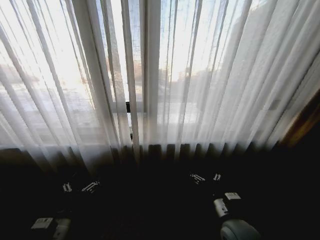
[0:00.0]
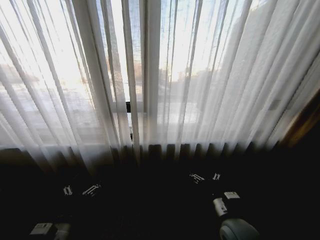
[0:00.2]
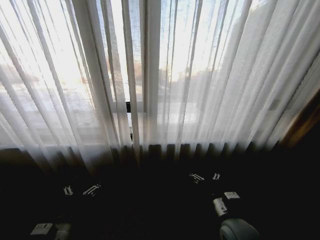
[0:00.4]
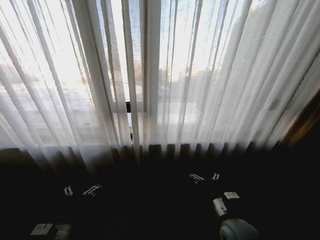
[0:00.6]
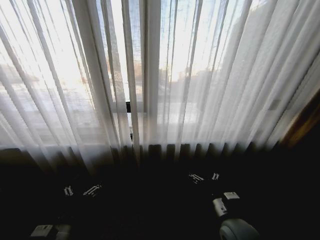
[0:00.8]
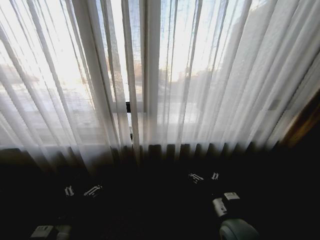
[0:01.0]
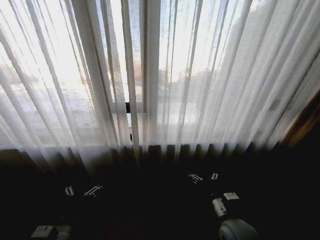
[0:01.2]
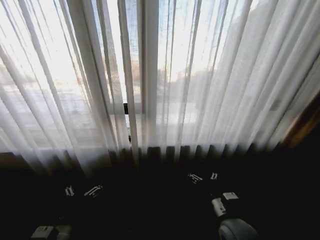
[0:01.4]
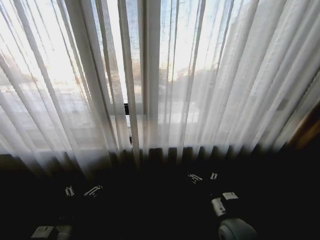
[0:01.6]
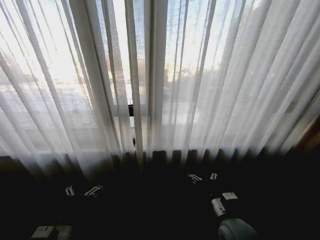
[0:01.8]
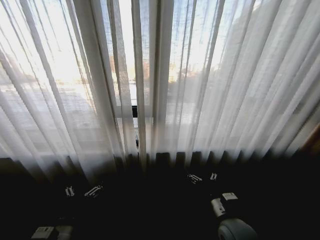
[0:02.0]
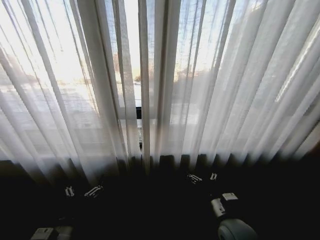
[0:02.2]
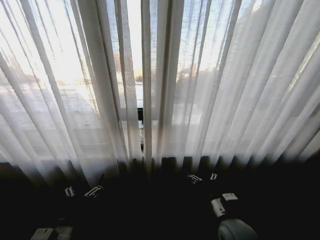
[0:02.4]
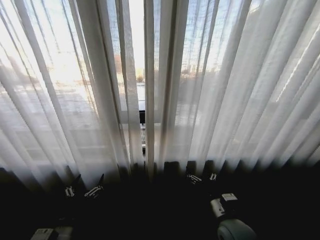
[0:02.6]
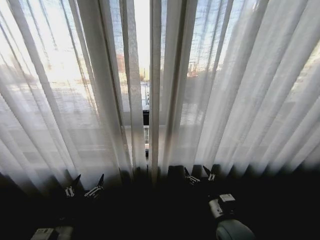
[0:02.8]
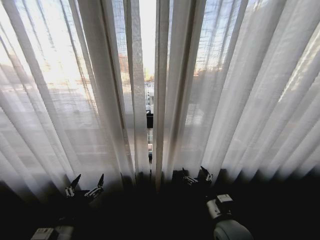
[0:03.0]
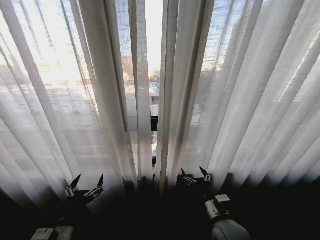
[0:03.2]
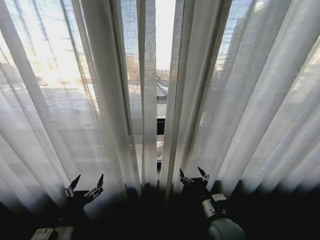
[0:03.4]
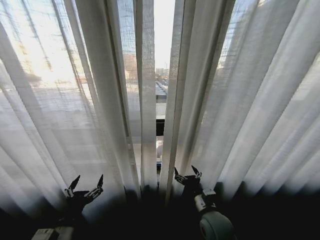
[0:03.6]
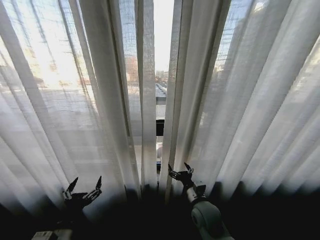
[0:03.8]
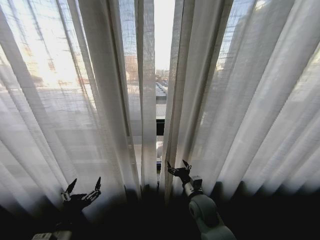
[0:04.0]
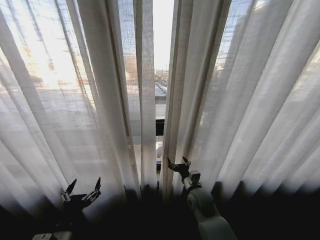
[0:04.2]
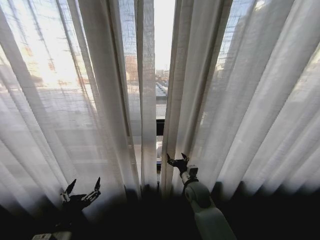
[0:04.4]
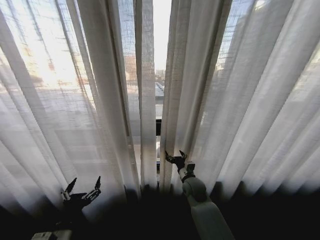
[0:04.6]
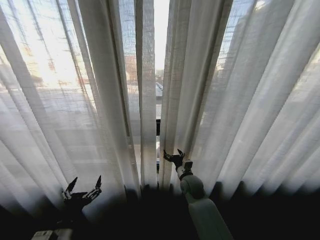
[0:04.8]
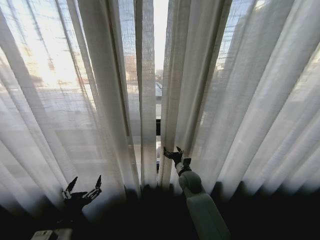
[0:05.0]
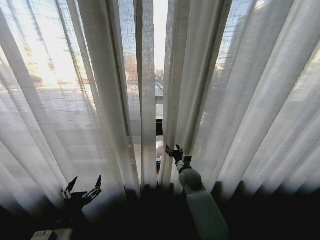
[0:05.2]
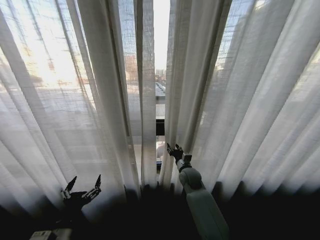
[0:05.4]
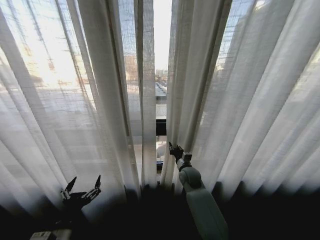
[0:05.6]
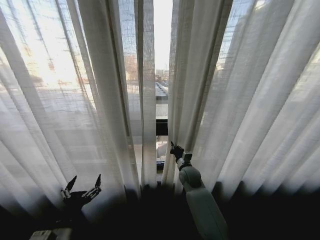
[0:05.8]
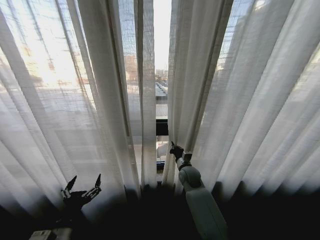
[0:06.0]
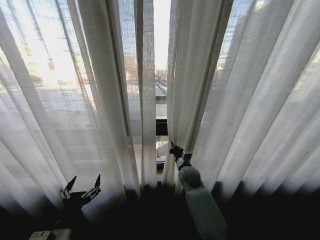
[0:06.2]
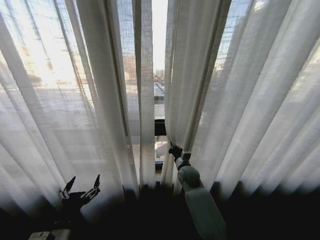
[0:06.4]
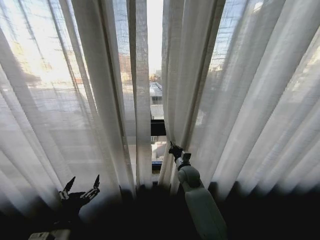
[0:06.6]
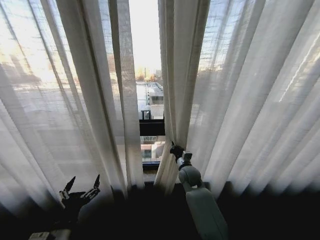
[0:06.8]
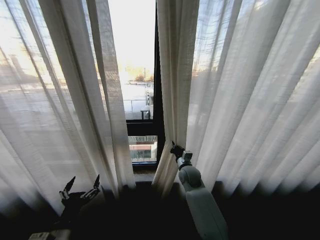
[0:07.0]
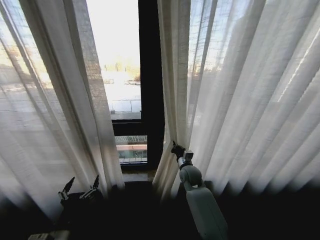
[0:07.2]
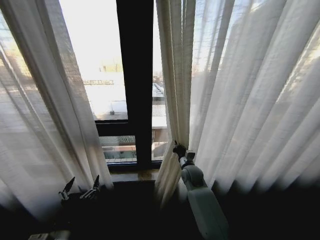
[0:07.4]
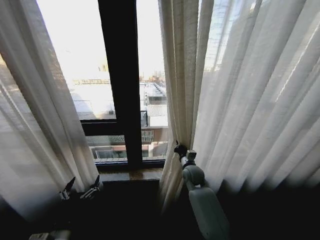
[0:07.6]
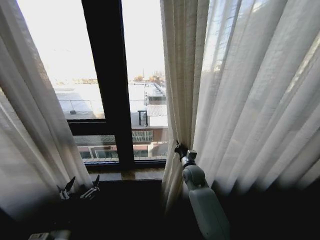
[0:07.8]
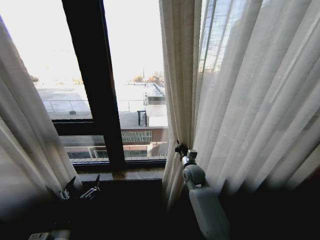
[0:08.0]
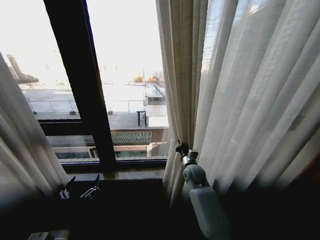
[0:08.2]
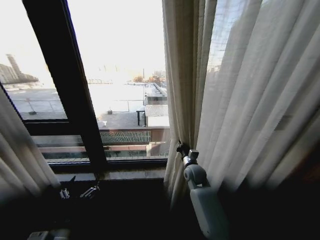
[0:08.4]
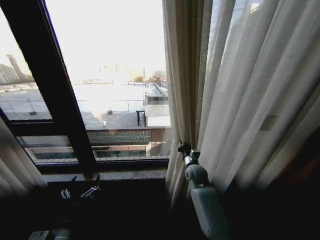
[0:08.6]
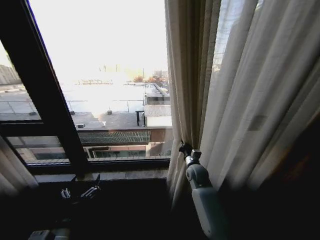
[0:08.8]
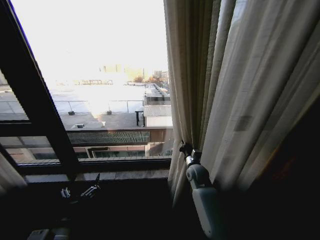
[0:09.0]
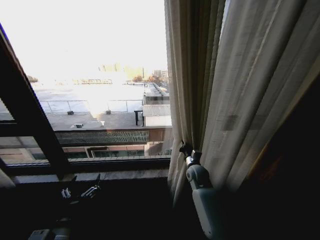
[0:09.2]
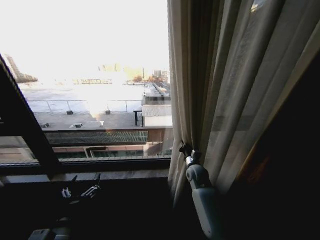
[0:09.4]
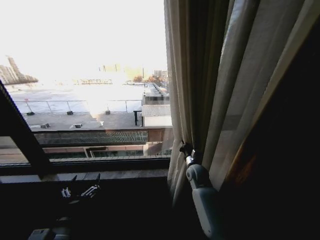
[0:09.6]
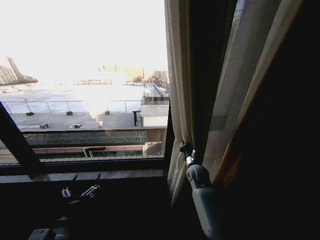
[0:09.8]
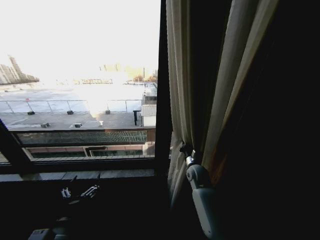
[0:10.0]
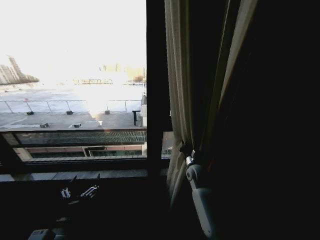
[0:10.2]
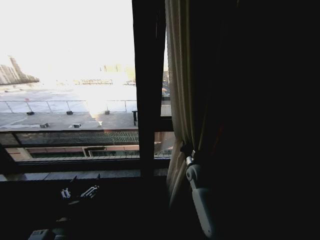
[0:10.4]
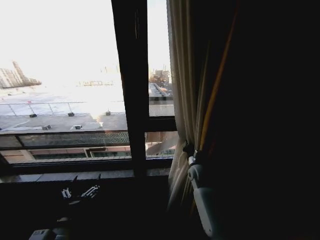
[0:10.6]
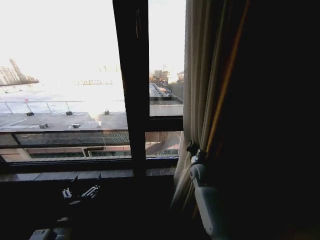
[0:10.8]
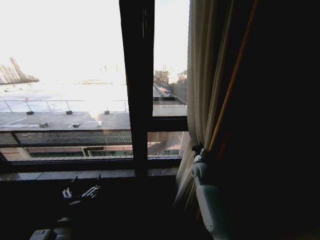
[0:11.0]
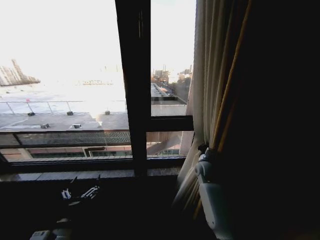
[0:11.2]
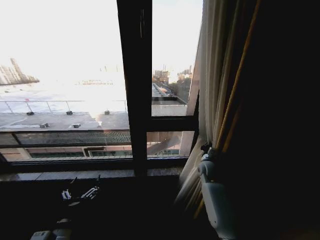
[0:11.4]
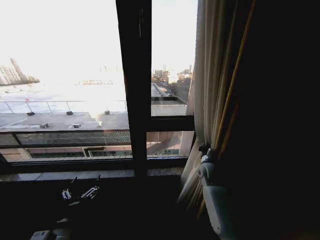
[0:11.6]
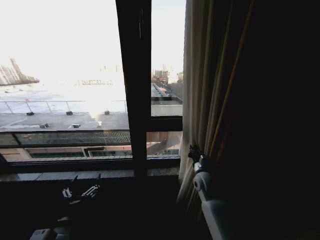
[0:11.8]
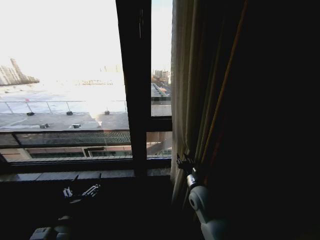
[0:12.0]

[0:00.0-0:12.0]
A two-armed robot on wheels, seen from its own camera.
Task of the whole recording: Open the curtains by pulling them apart, changing their state from closed to fully open.
0:03.0 to 0:04.4: The right gripper moves forward, some 15 cm.
0:04.4 to 0:06.0: The right gripper shifts approximately 10 cm forward, and closes its fingers.
0:10.4 to 0:12.0: The right gripper travels backward by roughly 10 cm, and opens its fingers.

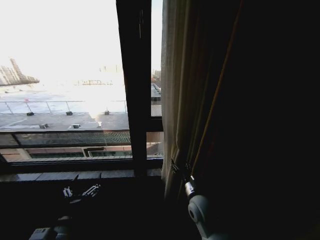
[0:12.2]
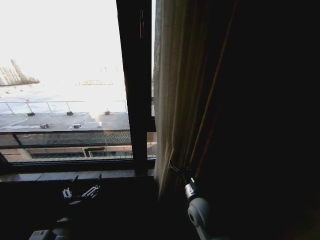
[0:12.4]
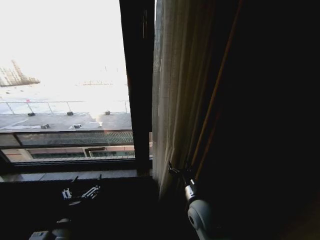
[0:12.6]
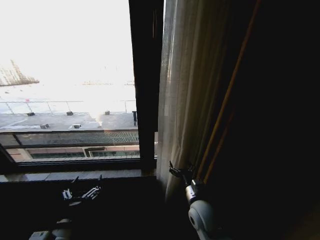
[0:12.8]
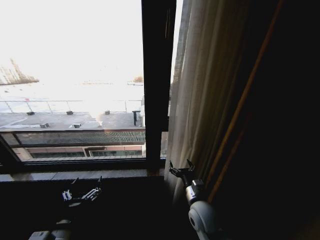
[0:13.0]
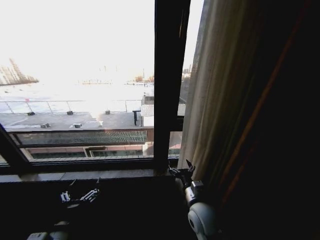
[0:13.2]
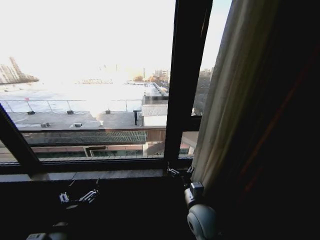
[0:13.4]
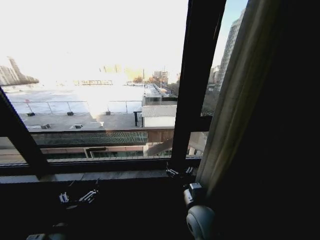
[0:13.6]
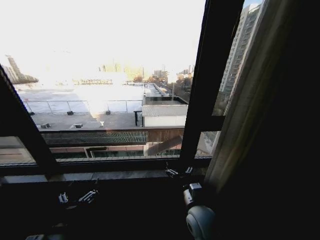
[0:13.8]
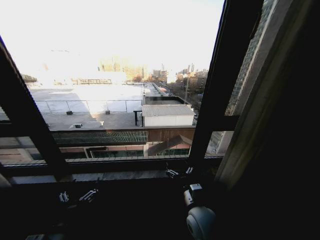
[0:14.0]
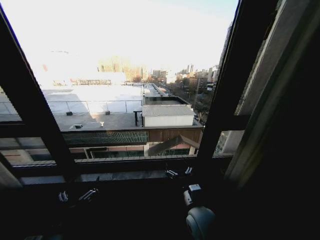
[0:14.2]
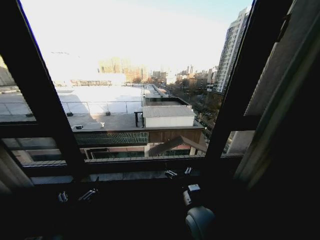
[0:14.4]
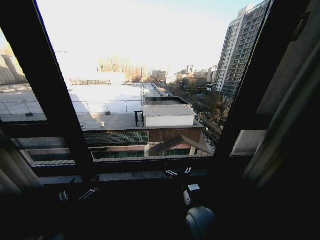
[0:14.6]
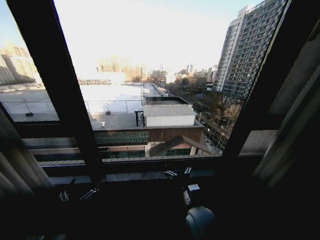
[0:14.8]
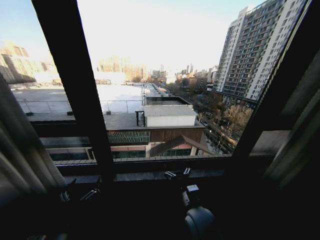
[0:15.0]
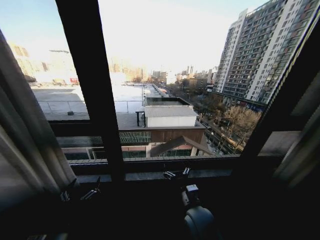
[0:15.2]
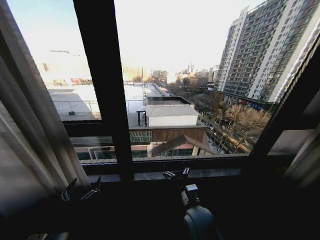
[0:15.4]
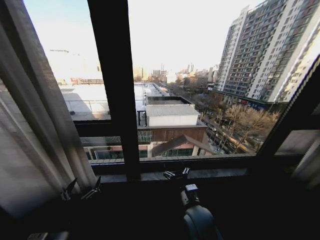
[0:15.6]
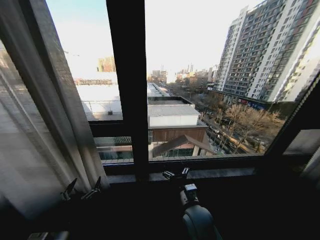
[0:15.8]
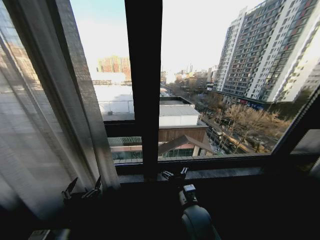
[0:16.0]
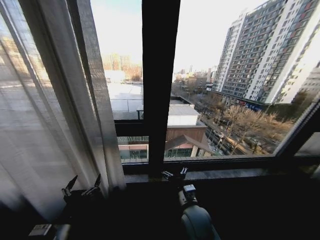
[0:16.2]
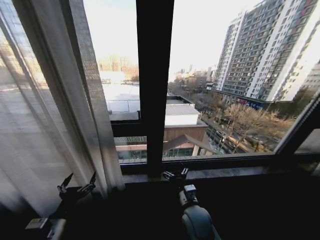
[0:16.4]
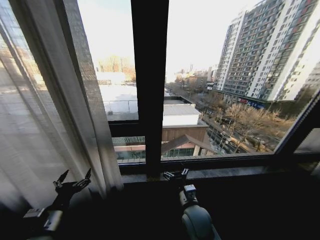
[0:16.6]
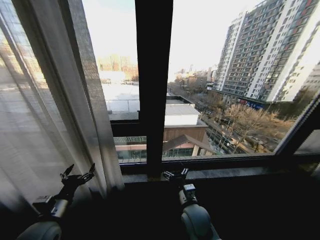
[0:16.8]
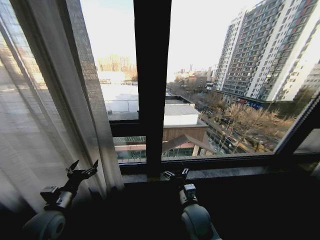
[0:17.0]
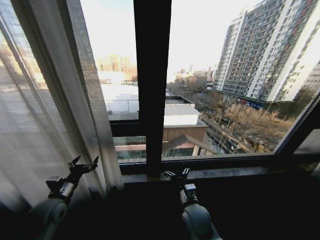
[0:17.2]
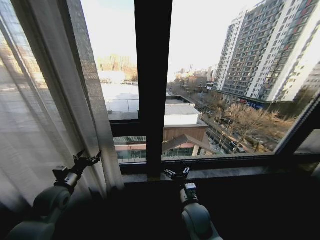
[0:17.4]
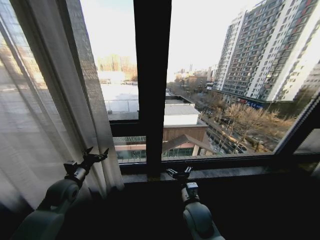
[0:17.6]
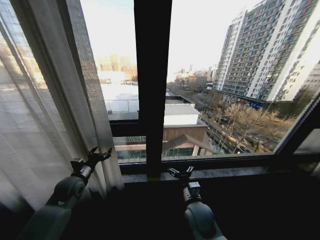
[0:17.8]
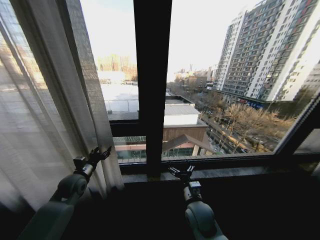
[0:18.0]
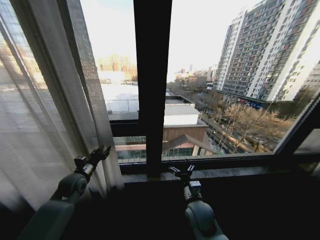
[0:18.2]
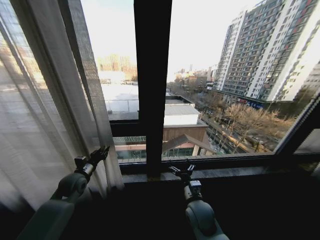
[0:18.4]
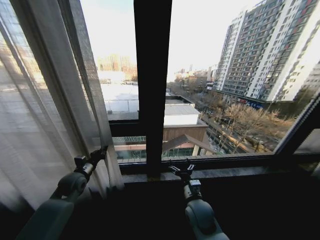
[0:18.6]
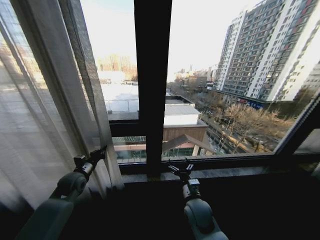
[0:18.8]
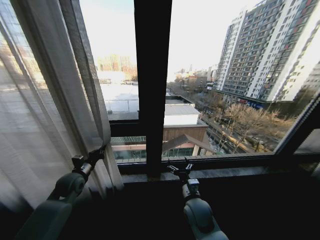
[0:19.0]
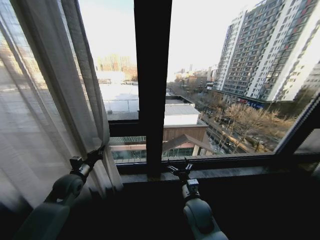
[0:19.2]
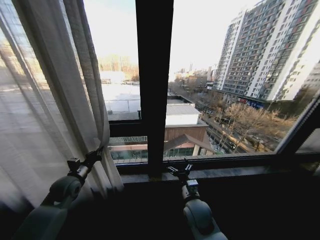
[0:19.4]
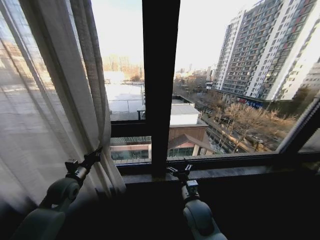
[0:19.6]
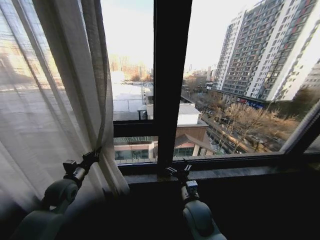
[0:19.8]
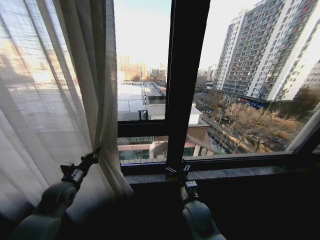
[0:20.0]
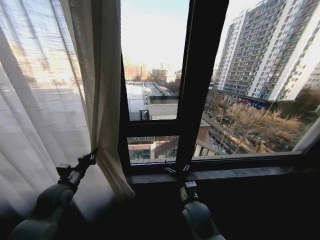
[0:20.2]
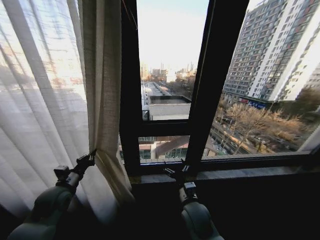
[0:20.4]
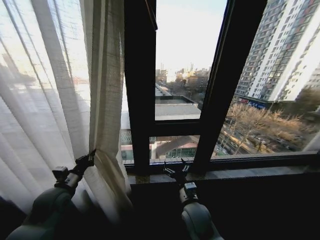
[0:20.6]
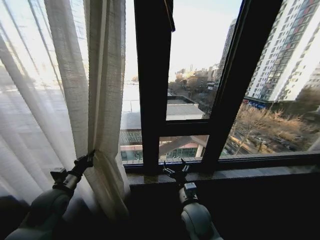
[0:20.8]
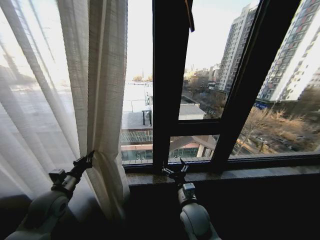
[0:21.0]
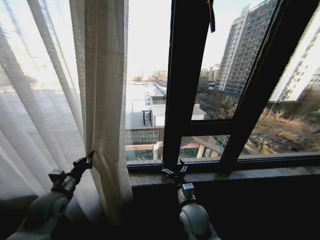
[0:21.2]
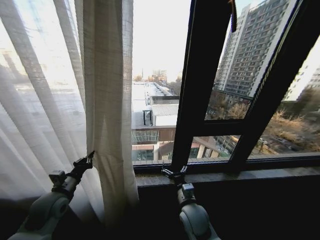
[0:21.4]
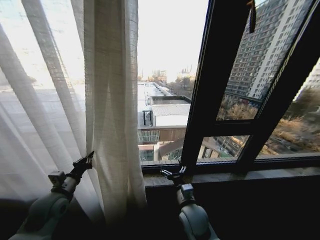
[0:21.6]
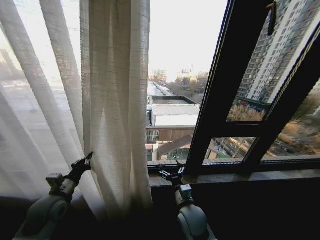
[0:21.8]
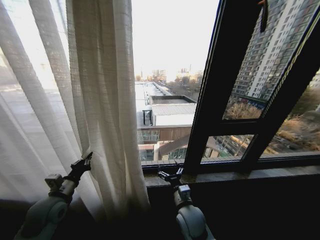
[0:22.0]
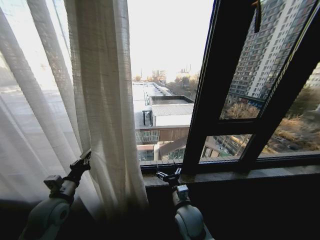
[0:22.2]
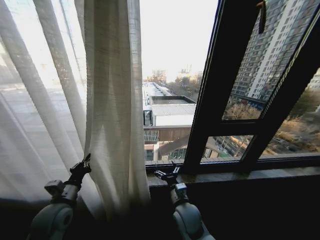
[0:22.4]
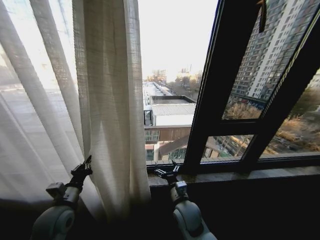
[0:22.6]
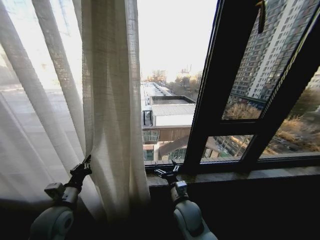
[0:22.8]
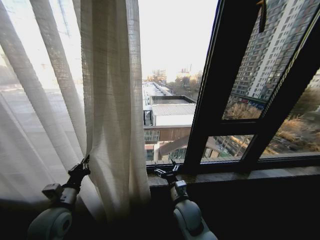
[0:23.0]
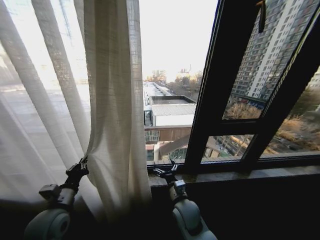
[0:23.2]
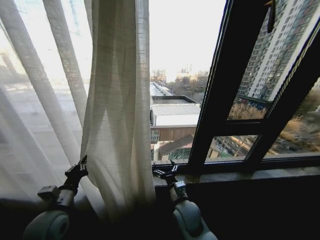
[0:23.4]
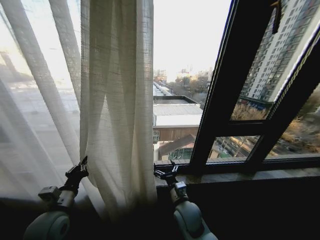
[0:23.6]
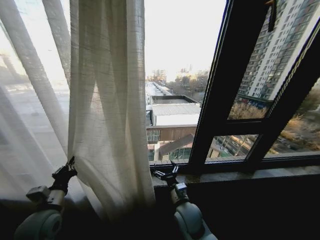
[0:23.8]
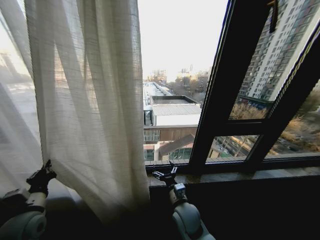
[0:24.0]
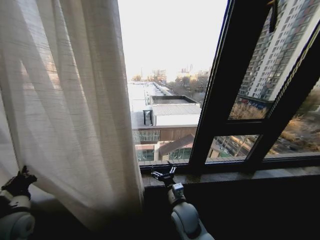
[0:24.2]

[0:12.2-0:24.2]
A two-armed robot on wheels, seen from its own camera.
Task of the whole recording: Open the curtains by pulling them apart, changing their state from closed to fully open.
0:12.2 to 0:13.8: The right gripper ends up roughly 5 cm from where it was, and opens.
0:15.2 to 0:16.6: The left gripper is displaced to the left and forward by about 10 cm.
0:16.6 to 0:18.2: The left gripper travels forward by some 20 cm, and closes up.
0:18.2 to 0:19.8: The left gripper closes up.
0:19.8 to 0:21.2: The left gripper goes some 5 cm backward.
0:21.2 to 0:22.6: The left gripper ends up about 5 cm from where it was.
0:22.6 to 0:24.2: The left gripper shifts approximately 10 cm to the left.
